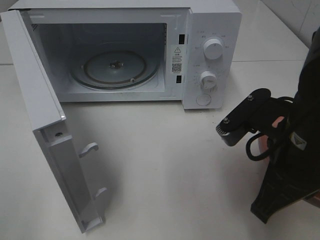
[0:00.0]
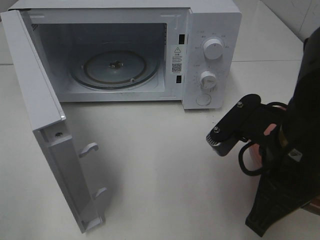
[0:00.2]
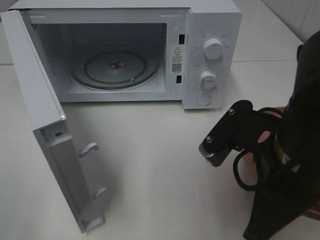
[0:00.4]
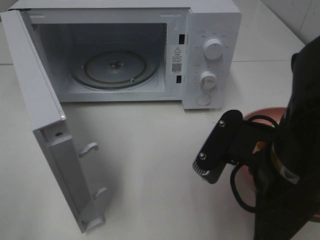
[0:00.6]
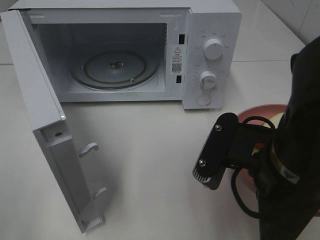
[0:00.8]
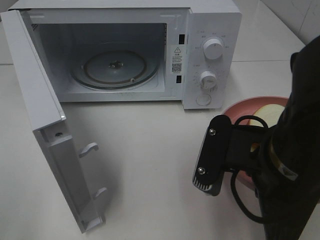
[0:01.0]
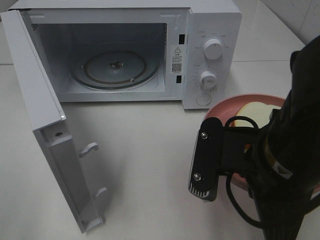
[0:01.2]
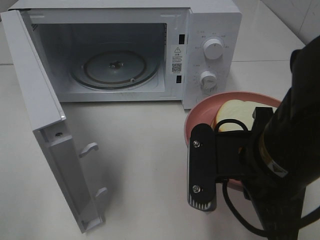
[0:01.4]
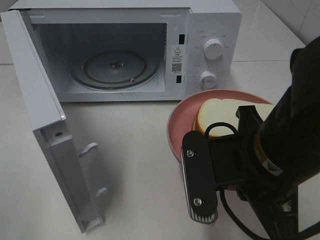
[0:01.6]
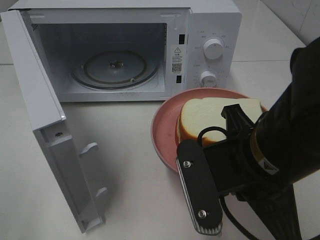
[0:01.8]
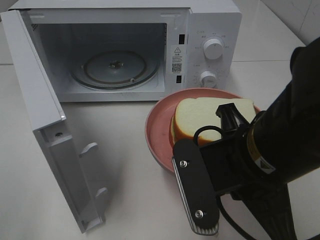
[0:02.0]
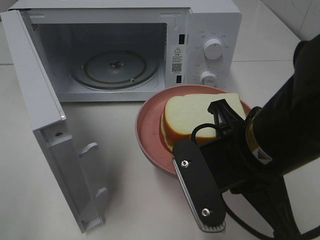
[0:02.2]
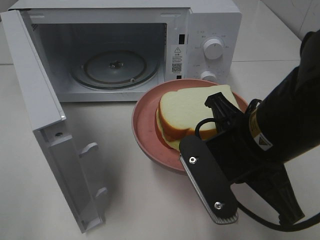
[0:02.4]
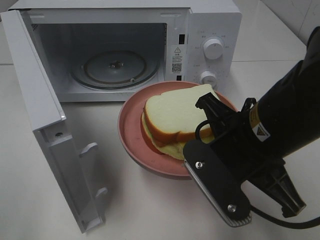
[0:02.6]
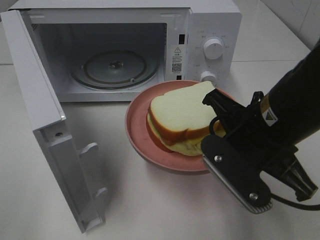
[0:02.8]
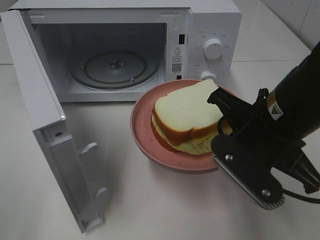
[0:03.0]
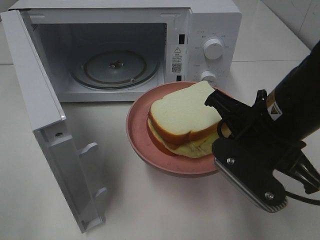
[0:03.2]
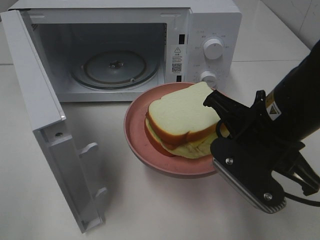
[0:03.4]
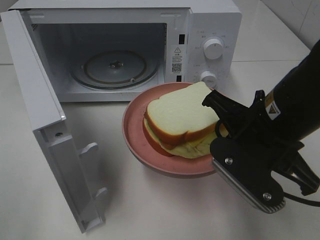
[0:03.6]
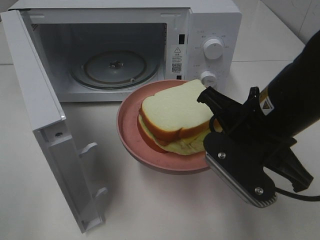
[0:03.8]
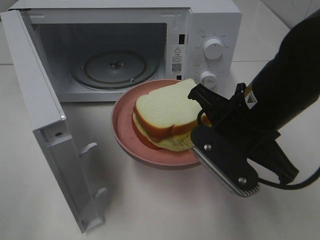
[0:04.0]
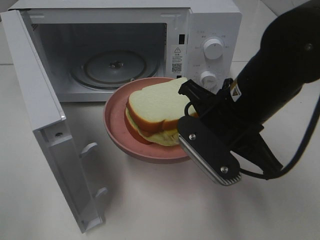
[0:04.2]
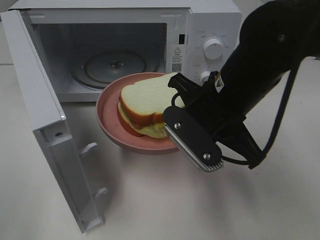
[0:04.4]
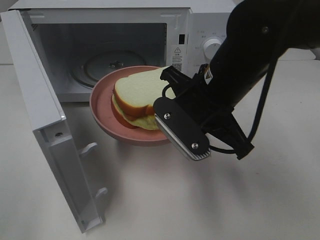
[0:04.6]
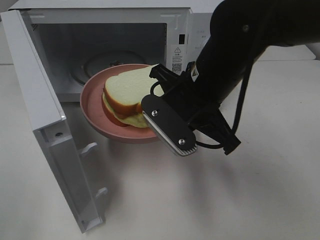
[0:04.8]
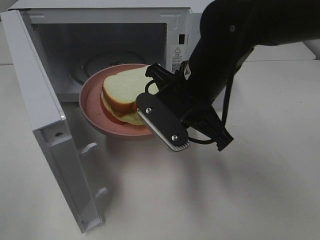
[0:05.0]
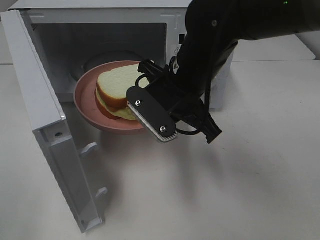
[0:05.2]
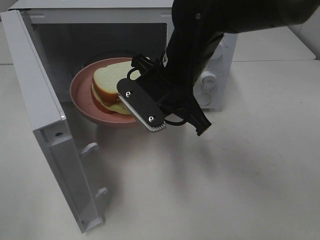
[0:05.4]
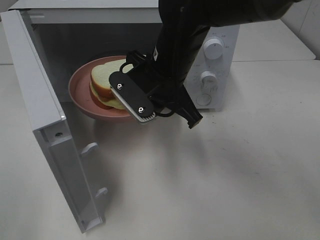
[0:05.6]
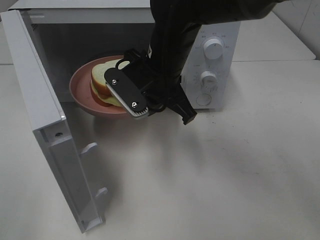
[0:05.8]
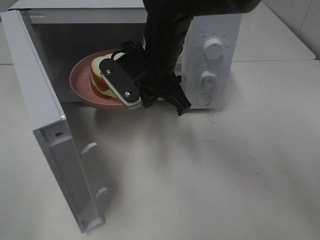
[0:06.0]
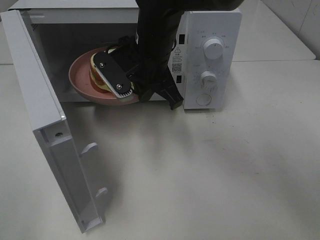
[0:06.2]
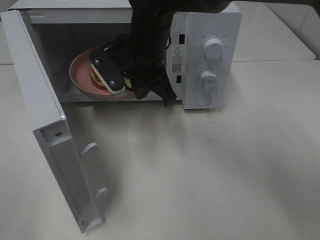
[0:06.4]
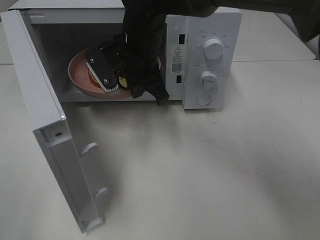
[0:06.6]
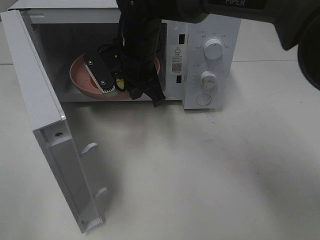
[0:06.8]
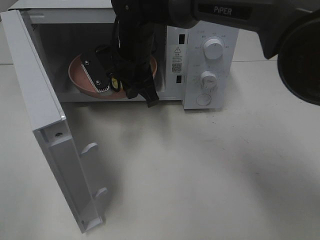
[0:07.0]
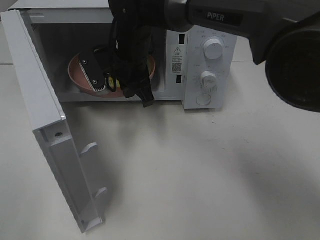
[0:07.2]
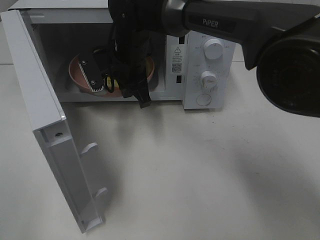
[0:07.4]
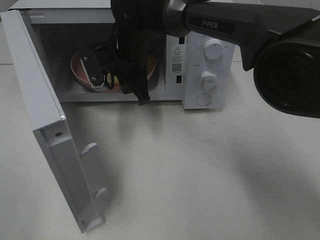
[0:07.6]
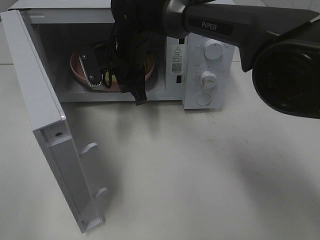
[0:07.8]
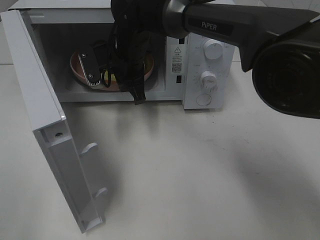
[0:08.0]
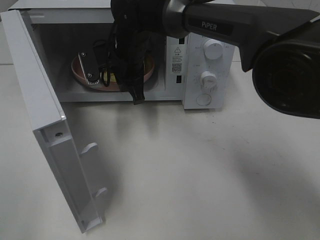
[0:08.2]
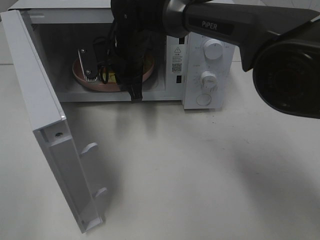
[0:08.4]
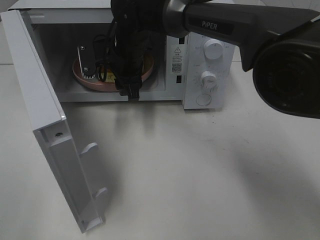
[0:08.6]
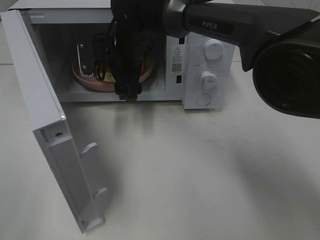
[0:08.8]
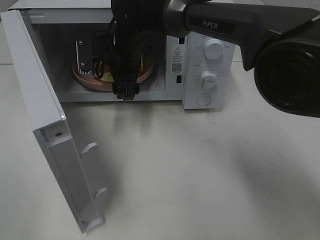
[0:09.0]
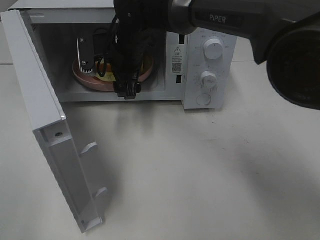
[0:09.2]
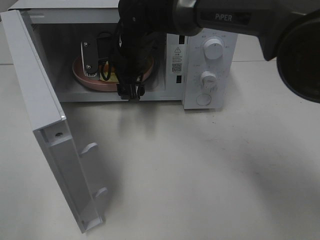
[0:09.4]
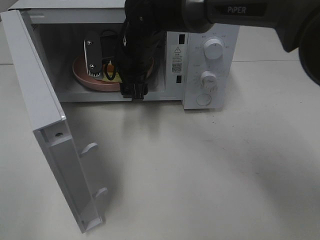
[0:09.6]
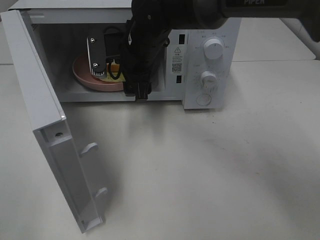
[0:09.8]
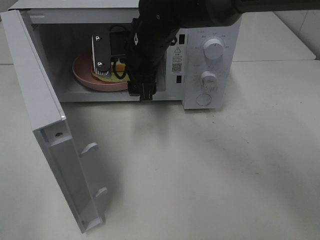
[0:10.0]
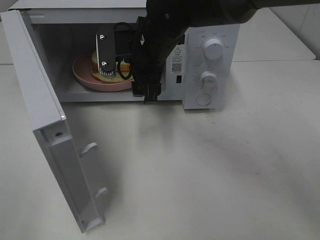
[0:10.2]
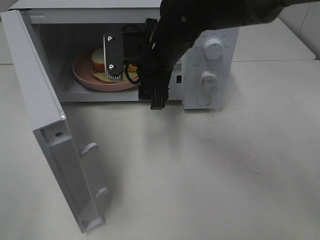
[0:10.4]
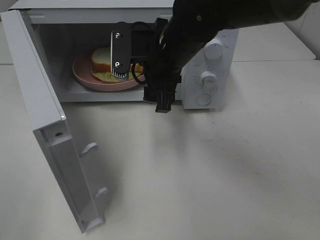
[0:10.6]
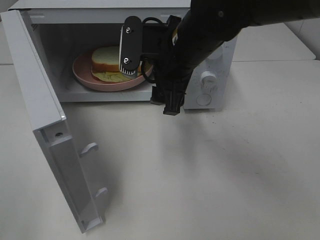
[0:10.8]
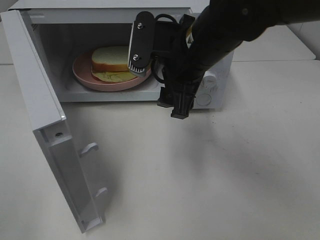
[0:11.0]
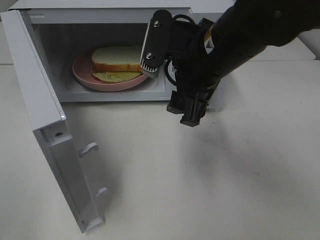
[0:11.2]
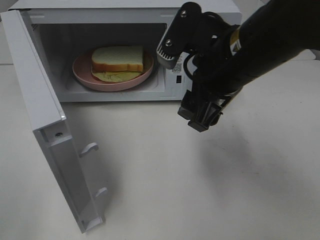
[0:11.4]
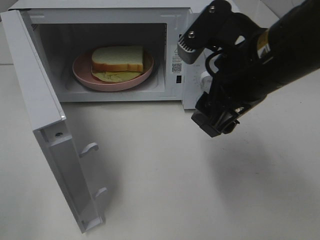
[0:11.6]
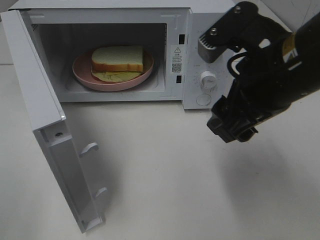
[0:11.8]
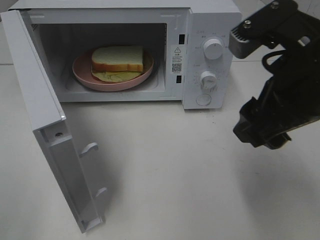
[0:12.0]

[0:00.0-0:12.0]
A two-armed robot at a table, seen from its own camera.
Task of the whole recording: Heat Sandwich.
Step, 0:00.0 to 0:10.0: Right hand: place the plate in the microwave.
0:01.6 to 0:03.0: The right gripper shifts roughly 5 cm forward.
0:03.0 to 0:04.4: The right gripper ends up about 5 cm from where it was.
0:04.4 to 0:06.0: The right gripper travels forward and to the left by about 15 cm.
0:06.0 to 0:07.6: The right gripper is displaced forward by approximately 5 cm.
0:07.6 to 0:09.0: The right gripper opens up.
0:09.0 to 0:10.4: The right gripper is displaced backward and to the right by roughly 10 cm.
0:10.4 to 0:12.0: The right gripper shifts about 25 cm backward, to the right and upward.

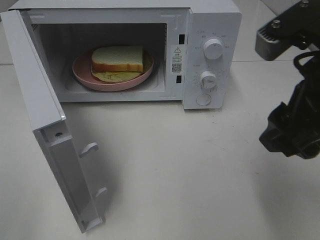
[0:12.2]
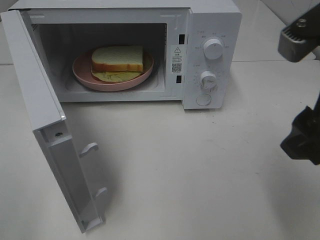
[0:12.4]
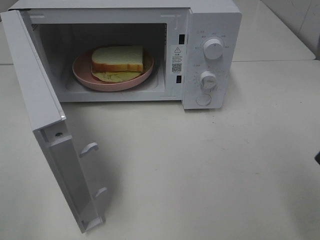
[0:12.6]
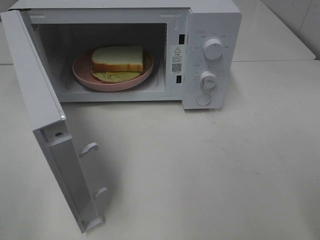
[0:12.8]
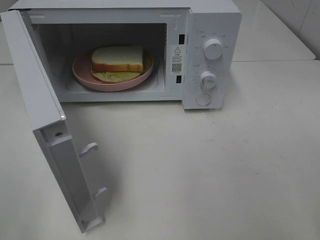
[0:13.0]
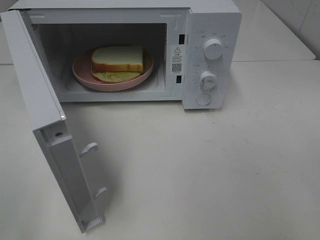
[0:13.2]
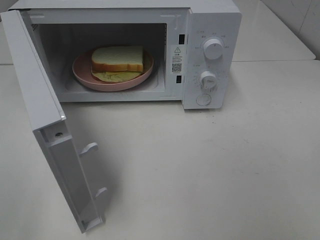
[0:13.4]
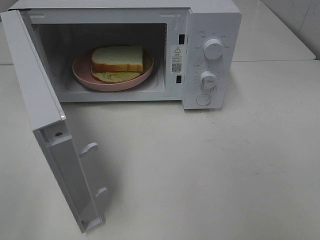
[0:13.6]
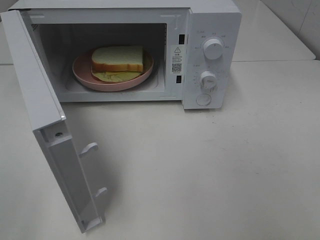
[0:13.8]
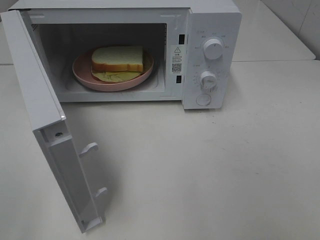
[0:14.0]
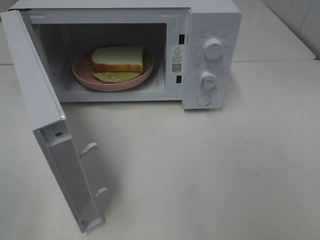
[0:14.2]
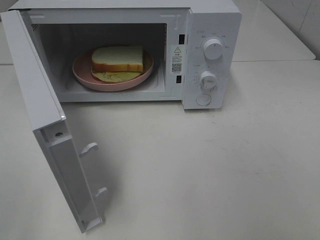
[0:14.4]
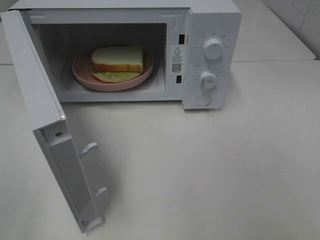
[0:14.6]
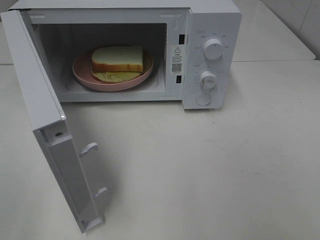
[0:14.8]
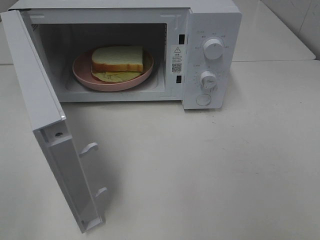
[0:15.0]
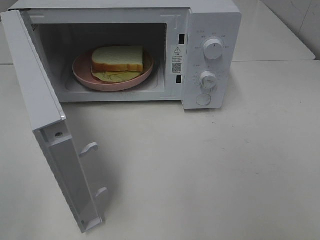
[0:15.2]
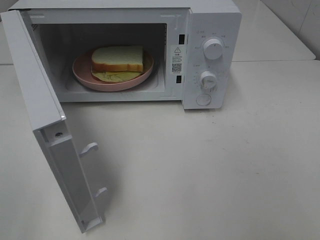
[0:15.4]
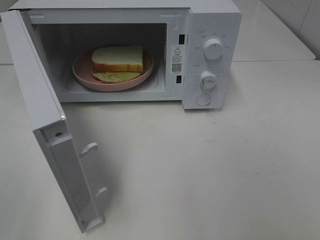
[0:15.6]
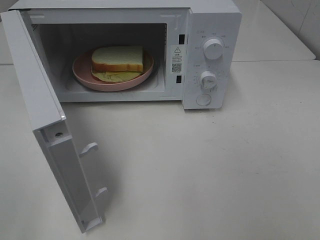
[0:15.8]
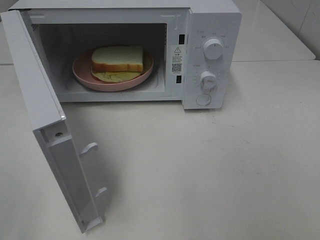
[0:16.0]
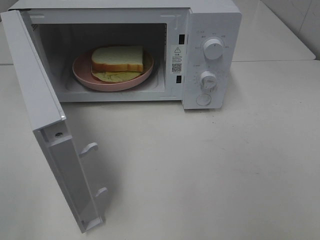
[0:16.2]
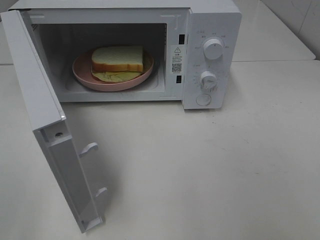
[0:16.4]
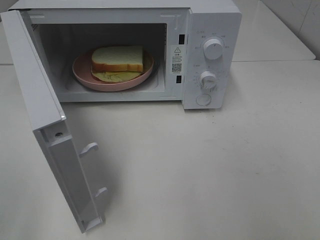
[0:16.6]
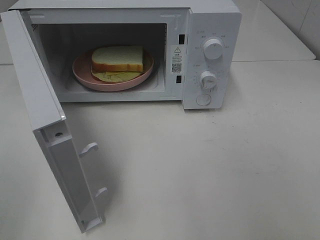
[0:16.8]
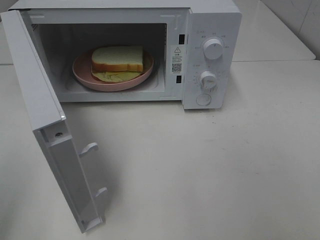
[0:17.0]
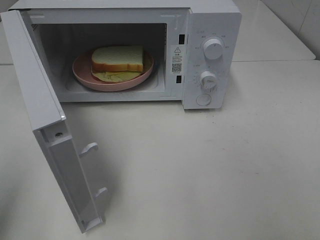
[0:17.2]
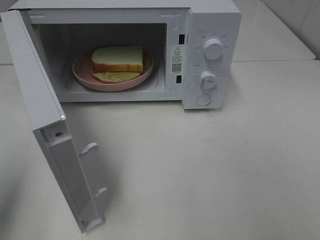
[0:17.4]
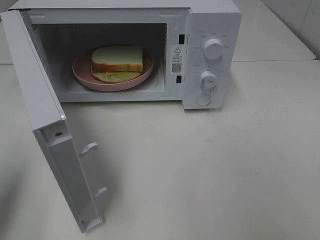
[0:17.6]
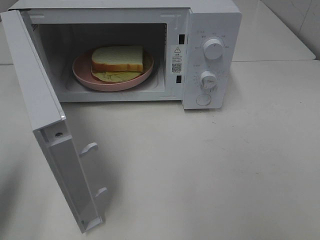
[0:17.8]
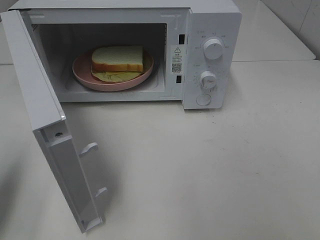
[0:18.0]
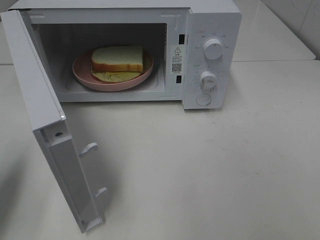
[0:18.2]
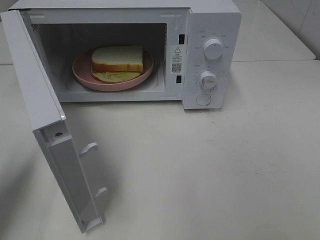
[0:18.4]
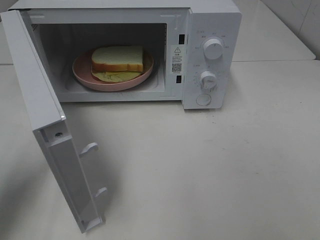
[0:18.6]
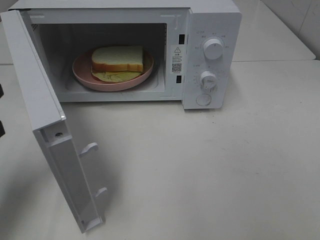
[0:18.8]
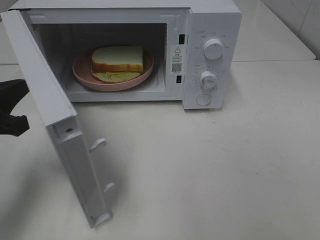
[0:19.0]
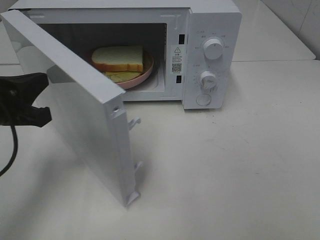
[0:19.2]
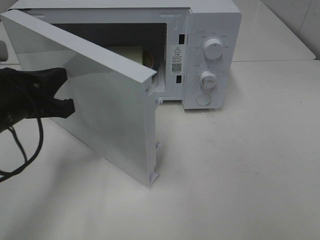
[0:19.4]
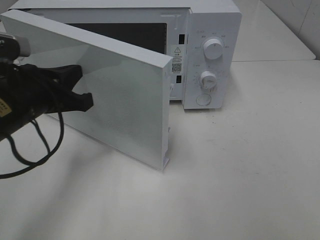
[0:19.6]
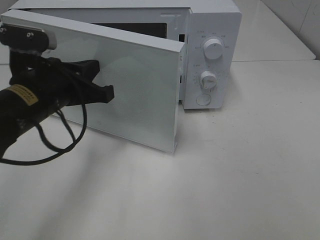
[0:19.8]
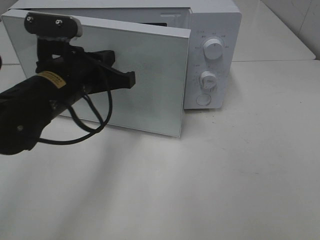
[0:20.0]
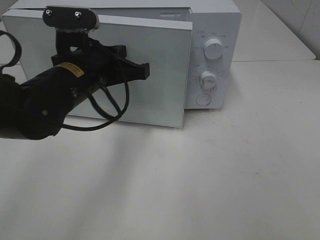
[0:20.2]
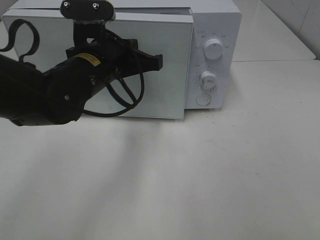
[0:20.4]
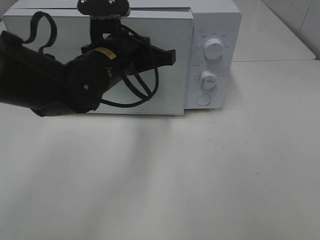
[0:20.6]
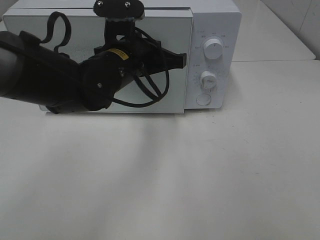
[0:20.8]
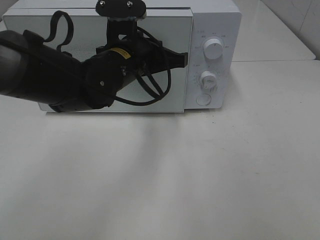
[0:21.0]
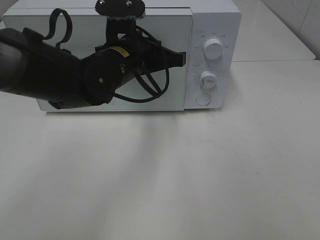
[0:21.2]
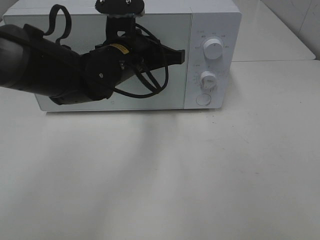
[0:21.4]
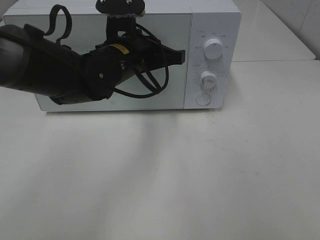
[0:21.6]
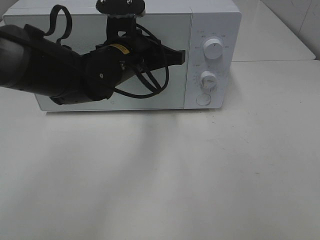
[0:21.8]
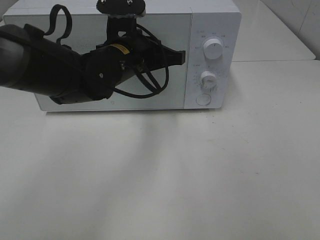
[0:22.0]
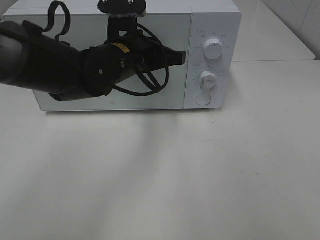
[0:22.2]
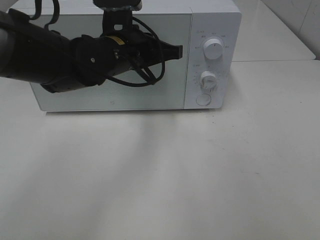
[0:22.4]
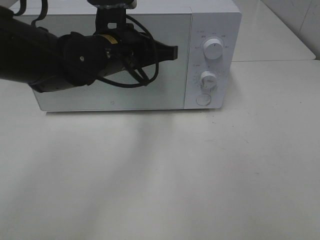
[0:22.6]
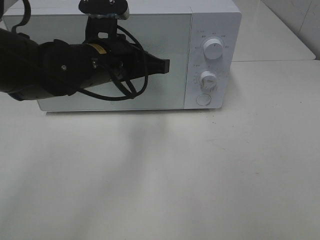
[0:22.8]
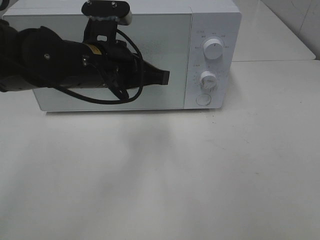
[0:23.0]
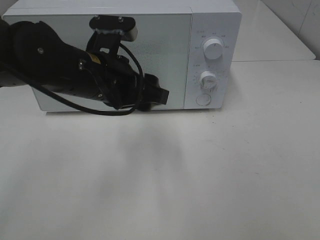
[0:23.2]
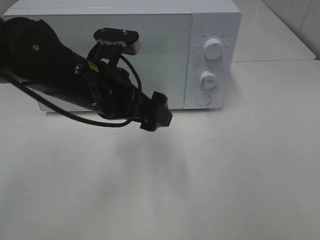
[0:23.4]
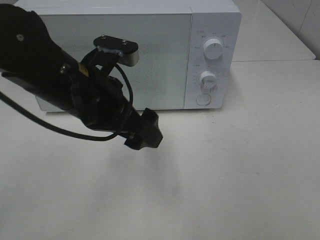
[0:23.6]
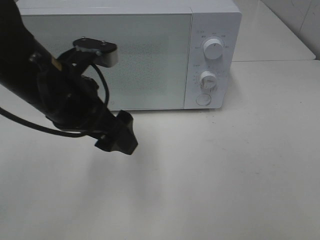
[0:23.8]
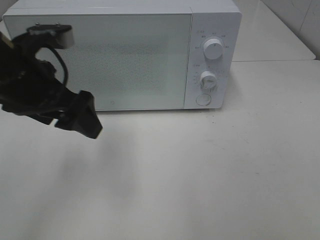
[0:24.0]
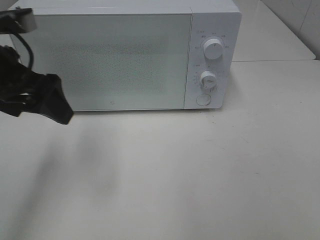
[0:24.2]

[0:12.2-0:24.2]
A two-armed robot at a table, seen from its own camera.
Task of the whole recording: Heat Sandwich.
Step, 0:12.2 to 0:22.0: Left hand: close the microwave door.
0:12.2 to 0:13.8: The right gripper is displaced backward and to the right by some 15 cm.
0:16.6 to 0:18.2: The left gripper heads forward and downward, covering some 15 cm, and closes up.
0:18.2 to 0:19.8: The left gripper moves to the right and forward, some 20 cm.
0:19.8 to 0:21.2: The left gripper is displaced to the right and forward by approximately 15 cm.
0:21.2 to 0:22.6: There are only small adjustments of the grippers.
0:22.6 to 0:24.2: The left gripper is displaced to the left, backward and upward by roughly 20 cm, and opens its fingers.
